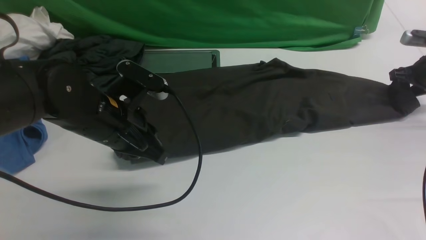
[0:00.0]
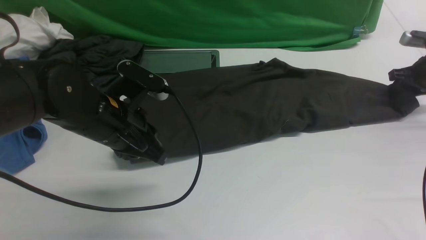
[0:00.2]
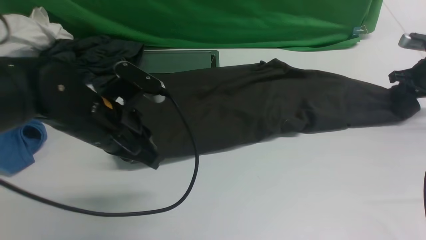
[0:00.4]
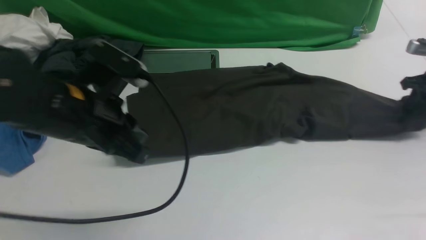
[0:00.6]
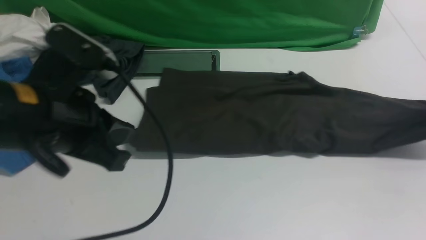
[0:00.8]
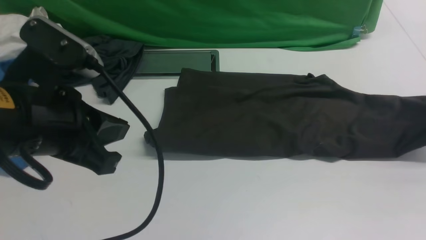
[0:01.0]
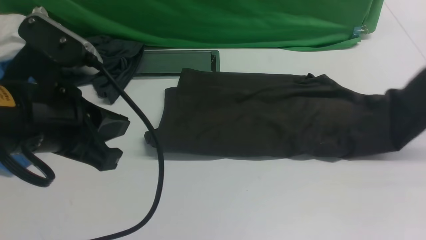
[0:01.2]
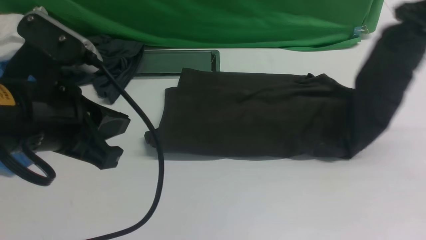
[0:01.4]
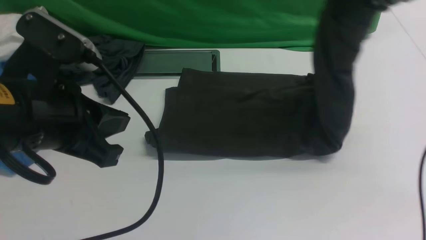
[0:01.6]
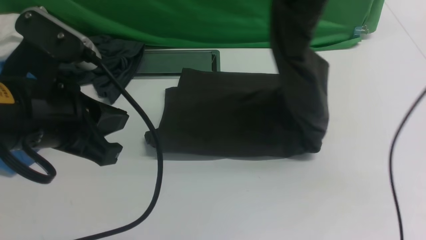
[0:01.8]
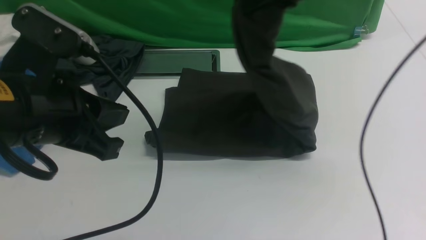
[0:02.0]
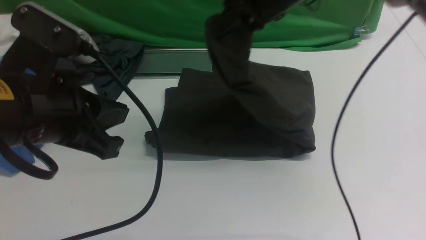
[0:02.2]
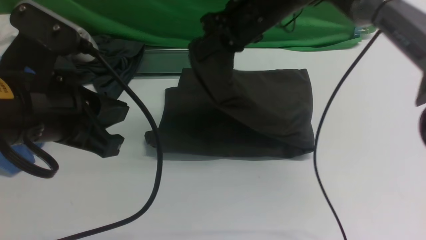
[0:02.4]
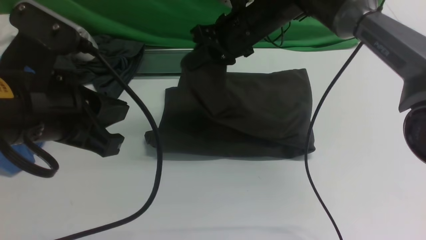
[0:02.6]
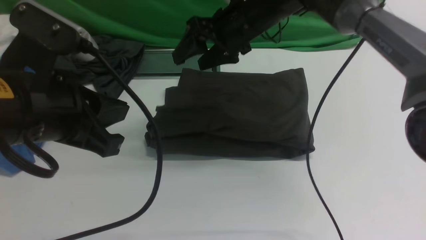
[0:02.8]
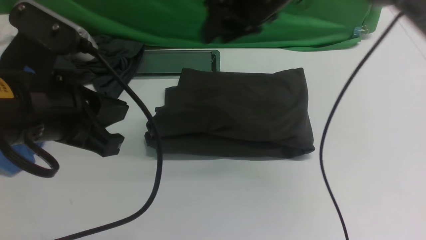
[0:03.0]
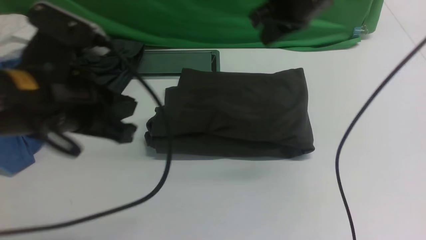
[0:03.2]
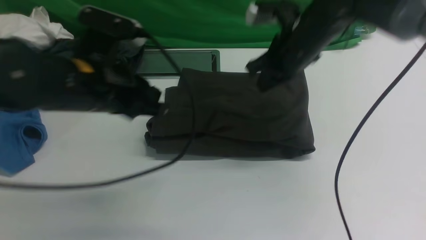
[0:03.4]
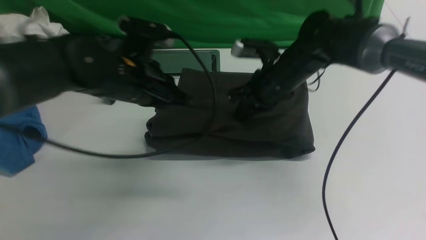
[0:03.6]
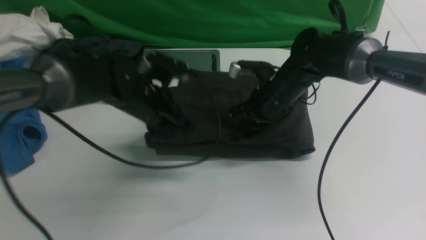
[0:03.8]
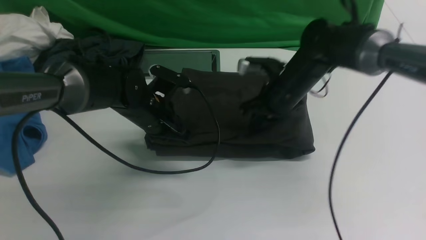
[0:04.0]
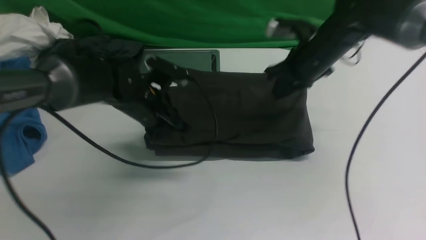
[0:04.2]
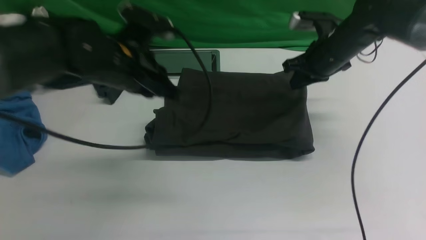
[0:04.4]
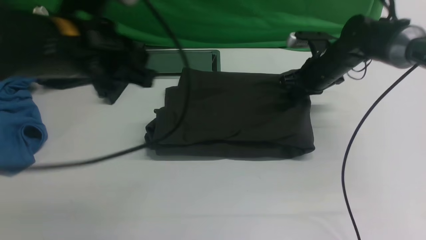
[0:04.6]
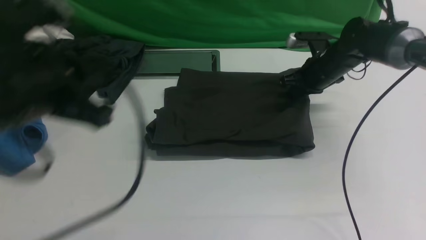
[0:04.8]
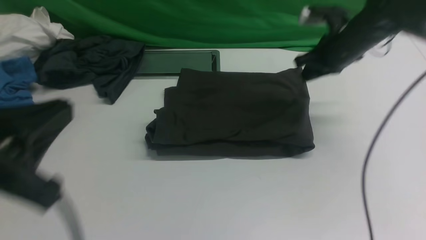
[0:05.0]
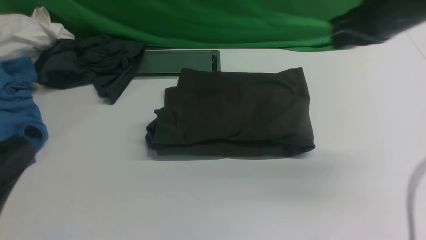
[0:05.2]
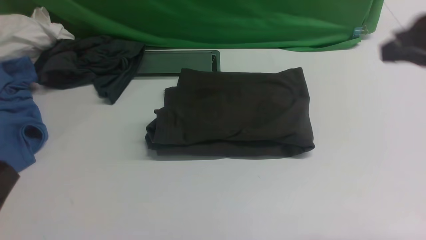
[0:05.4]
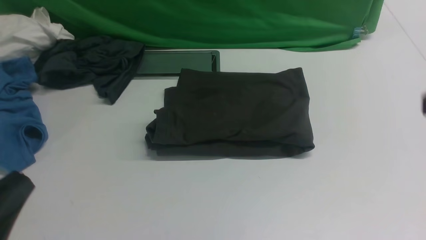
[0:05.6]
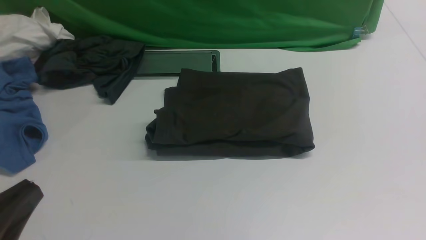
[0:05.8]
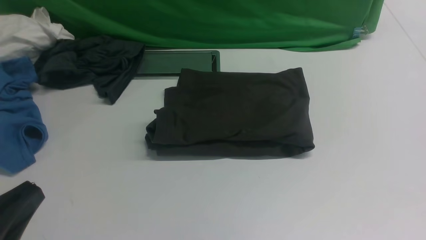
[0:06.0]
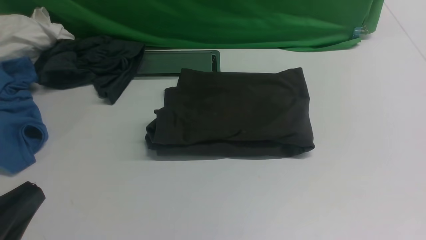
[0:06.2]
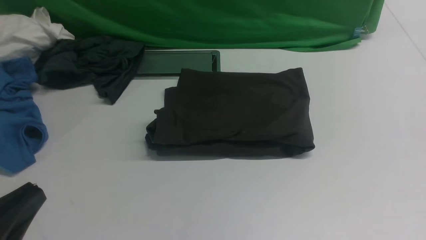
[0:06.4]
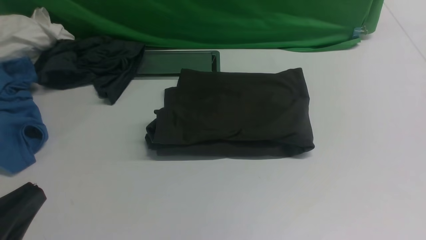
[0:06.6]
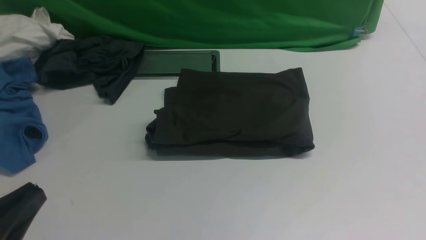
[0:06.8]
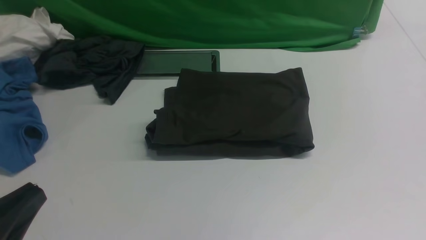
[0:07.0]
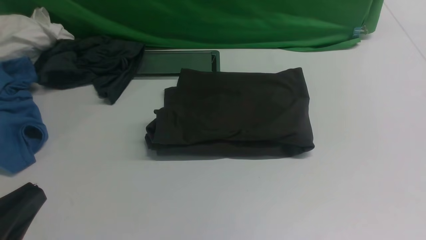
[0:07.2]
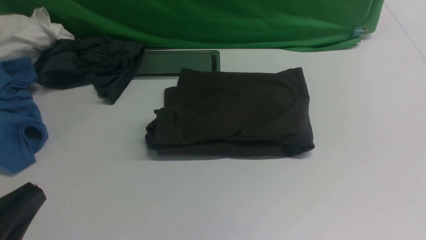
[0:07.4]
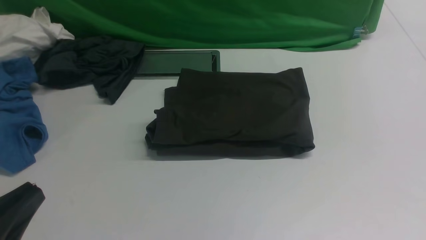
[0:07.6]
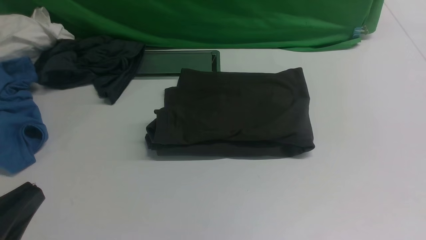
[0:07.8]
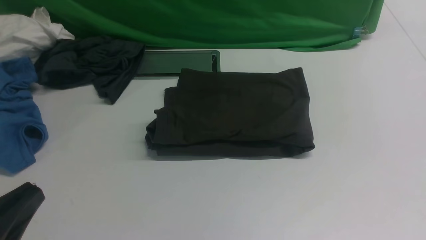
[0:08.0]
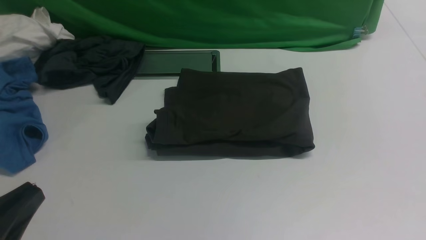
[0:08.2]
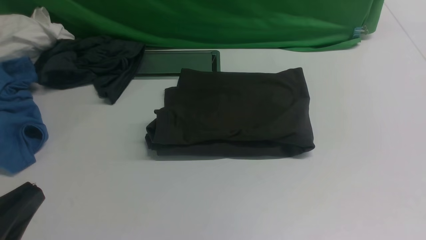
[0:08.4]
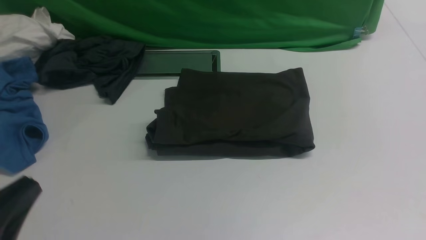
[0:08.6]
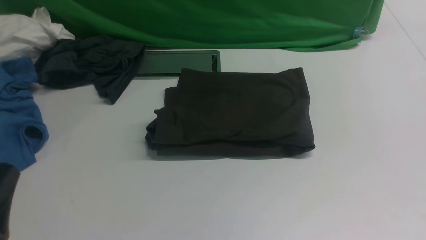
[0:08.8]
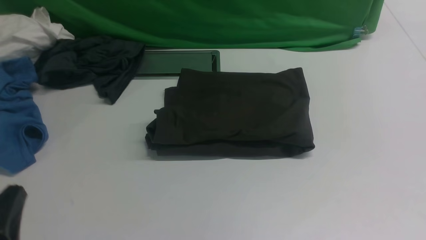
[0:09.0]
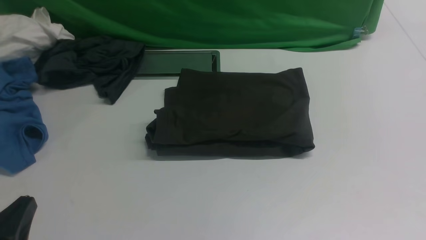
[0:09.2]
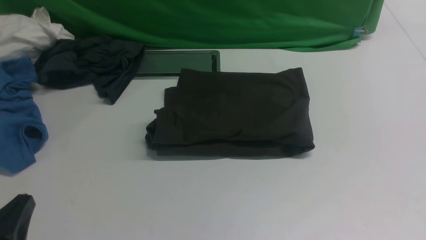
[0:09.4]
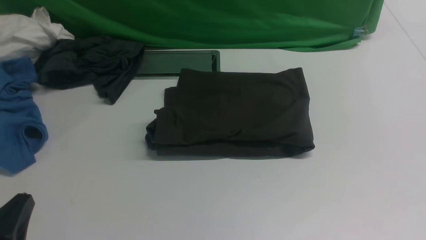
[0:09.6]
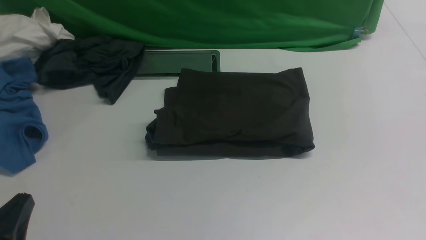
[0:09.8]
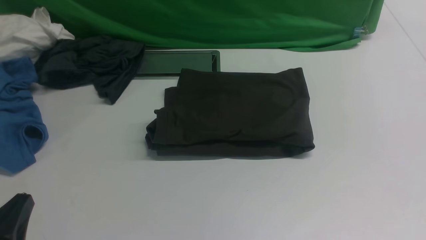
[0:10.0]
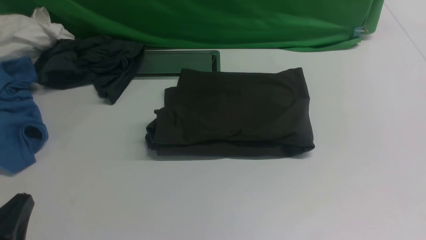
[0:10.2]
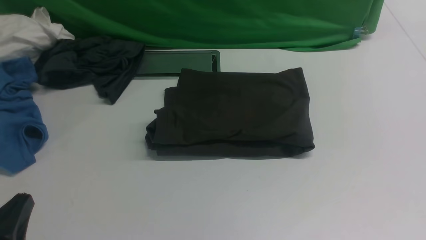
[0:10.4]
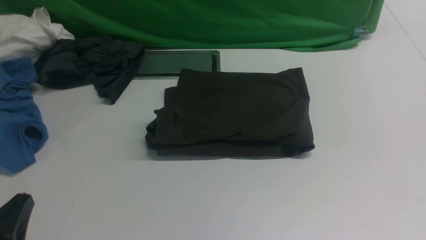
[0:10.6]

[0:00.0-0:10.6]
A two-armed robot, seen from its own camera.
Step, 0:00.8 to 0:03.2: use the right arm to drag the right edge of the fabric to the left and folds it over the left edge.
0:00.0 to 0:01.6: The left gripper heads upward and backward, covering roughly 15 cm; the right gripper travels upward and to the left by some 30 cm, and closes.
0:01.6 to 0:03.0: The right gripper goes approximately 15 cm to the left.
0:03.0 to 0:04.6: The left gripper reaches approximately 15 cm forward, then returns, while the right gripper goes some 20 cm downward and to the right, and closes.
0:04.6 to 0:06.0: The right gripper heads backward and upward, covering roughly 40 cm, while the left gripper is displaced backward by roughly 20 cm.
0:07.6 to 0:09.0: The left gripper goes about 5 cm downward.
